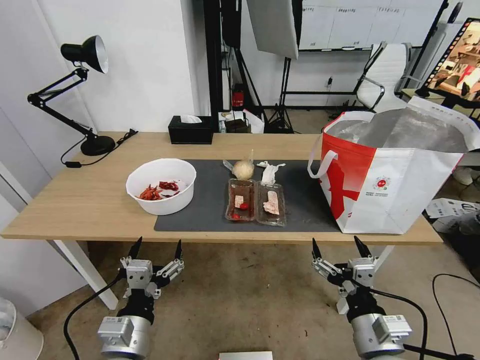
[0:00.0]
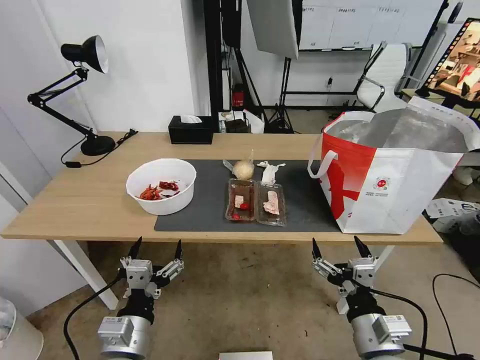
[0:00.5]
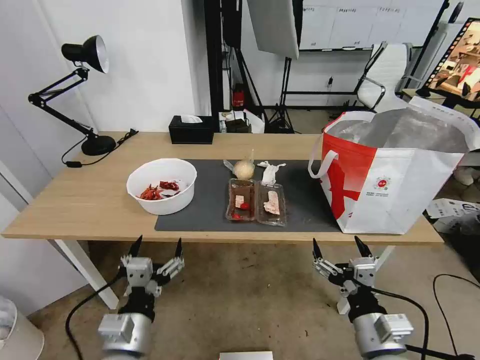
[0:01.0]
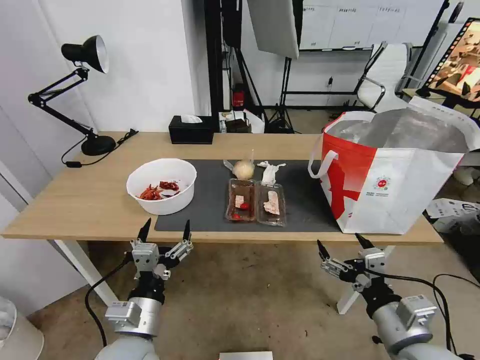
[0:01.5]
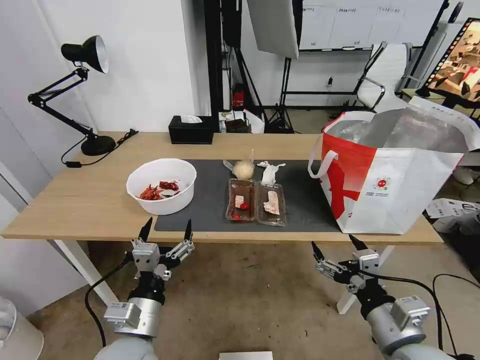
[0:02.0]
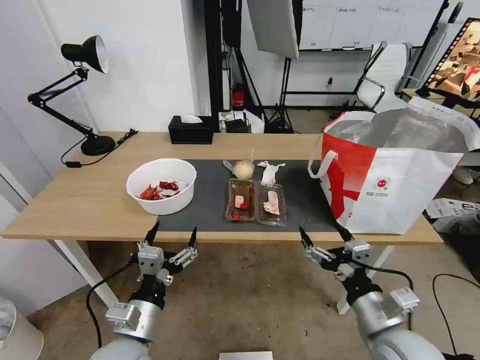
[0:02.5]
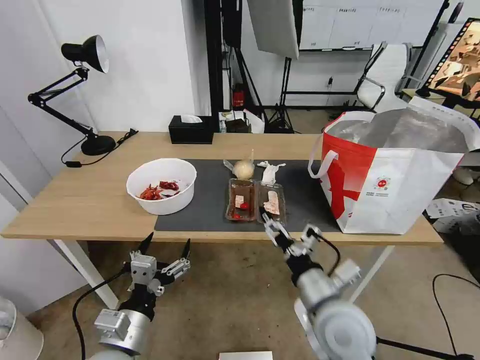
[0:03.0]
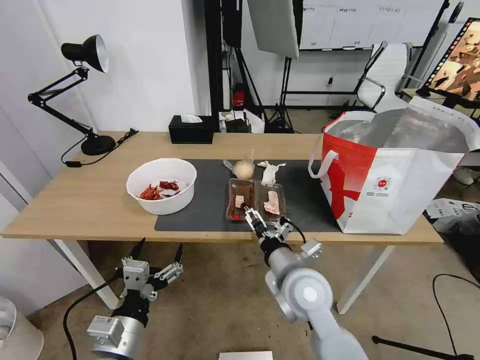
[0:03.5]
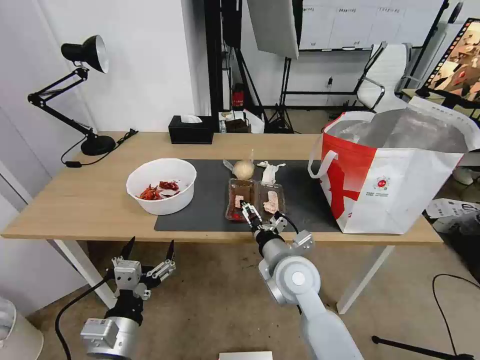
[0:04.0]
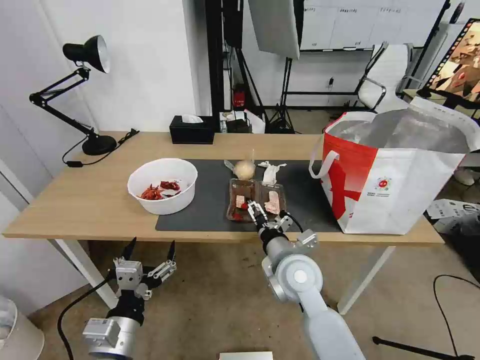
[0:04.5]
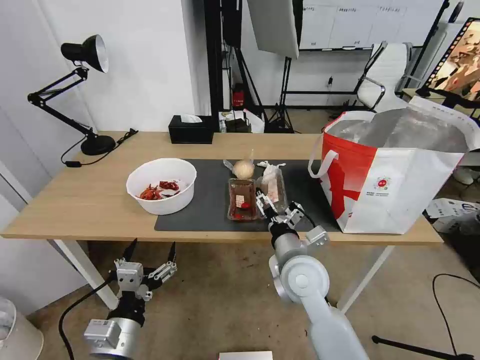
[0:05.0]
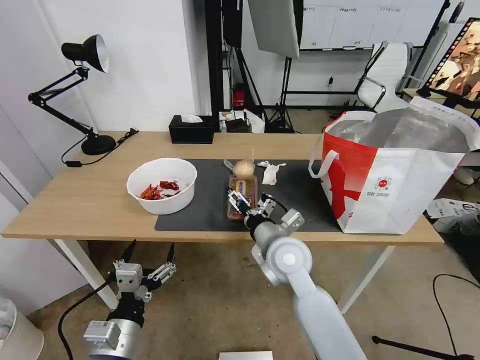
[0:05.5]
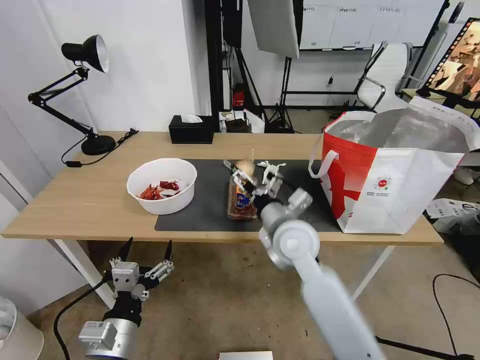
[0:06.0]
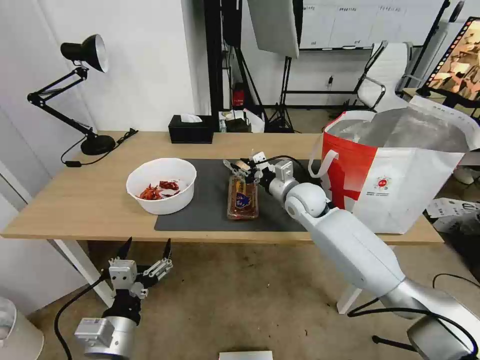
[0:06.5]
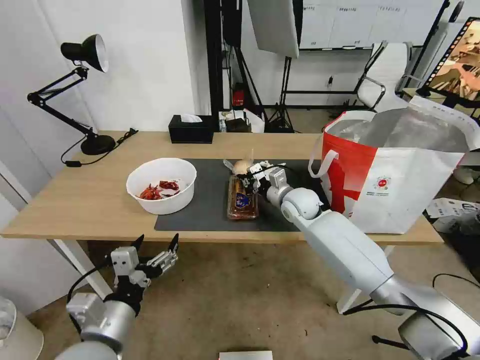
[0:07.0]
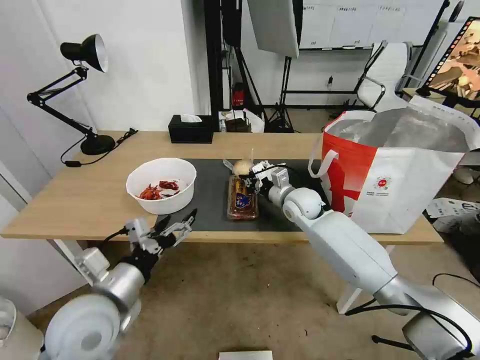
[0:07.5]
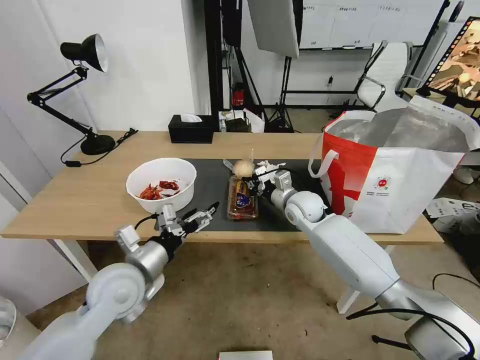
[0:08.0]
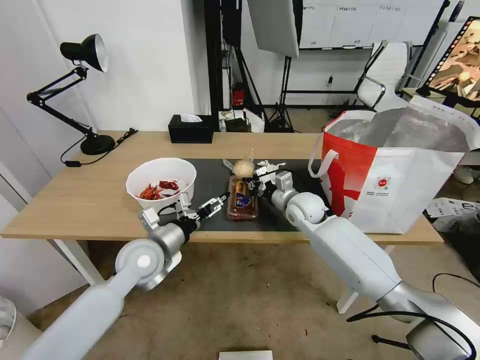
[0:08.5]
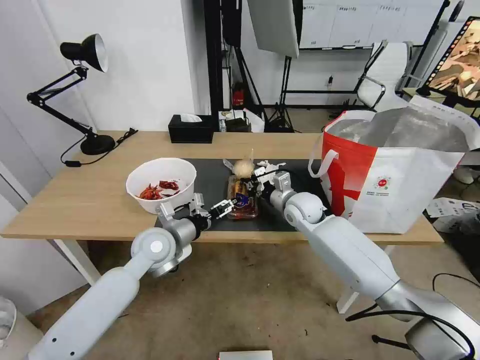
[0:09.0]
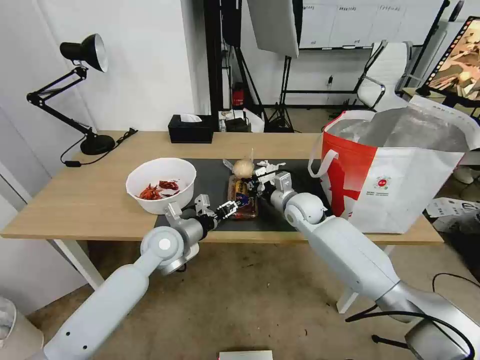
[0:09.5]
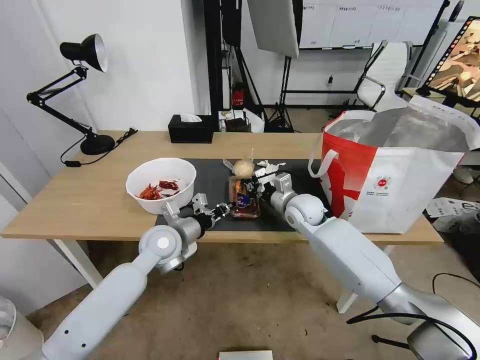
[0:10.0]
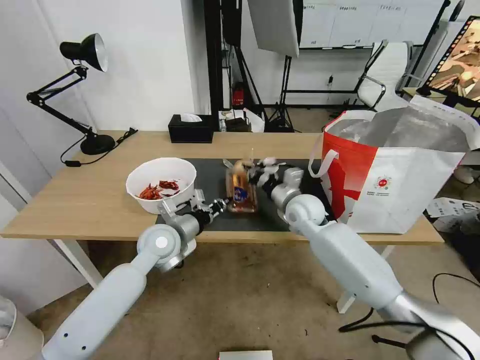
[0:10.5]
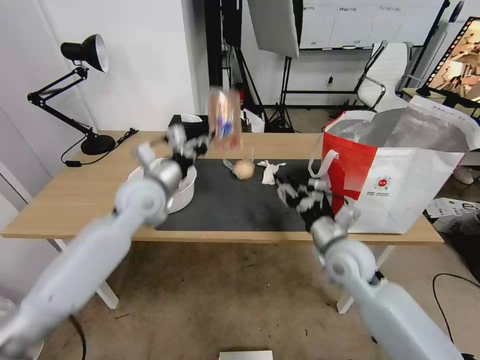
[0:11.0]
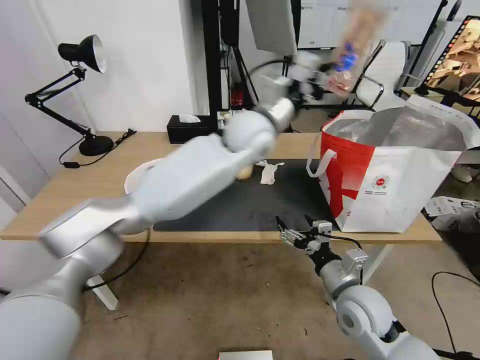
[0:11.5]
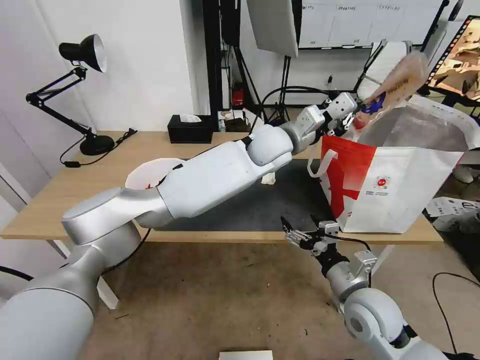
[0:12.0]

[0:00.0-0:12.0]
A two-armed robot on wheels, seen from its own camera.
Task of the whole recording: Pick up the trash from the table and place it into the takeout bag.
0:02.0 to 0:04.0: The right gripper goes about 25 cm to the left and forward.
0:04.0 to 0:06.0: The right gripper travels forward by about 5 cm.
0:06.0 to 0:08.0: The left gripper goes about 15 cm forward. The right gripper is displaced forward and to the right by some 15 cm, and closes its fingers.
0:08.0 to 0:10.0: The left gripper shifts approximately 10 cm forward, and closes its fingers.
0:10.0 to 0:12.0: The left gripper shifts about 35 cm to the right, upward and forward. Meanwhile the right gripper shifts about 25 cm backward, and opens up.

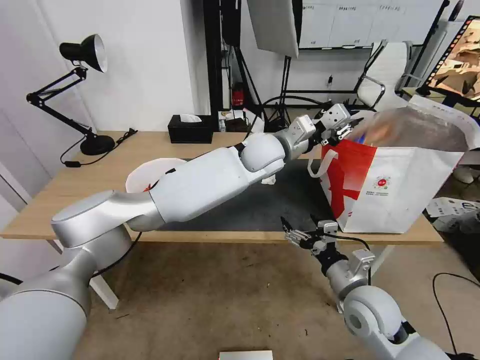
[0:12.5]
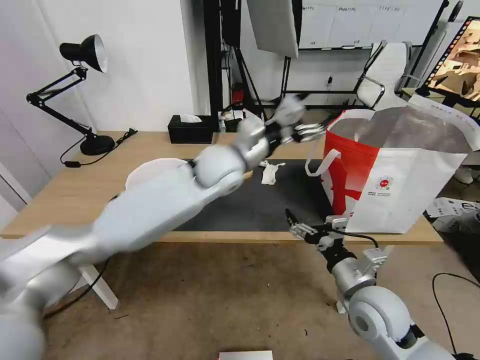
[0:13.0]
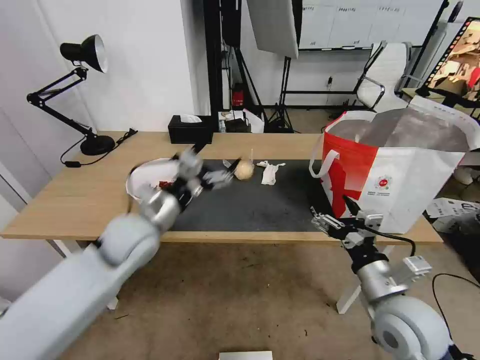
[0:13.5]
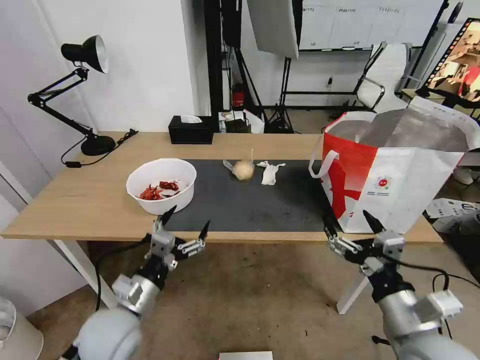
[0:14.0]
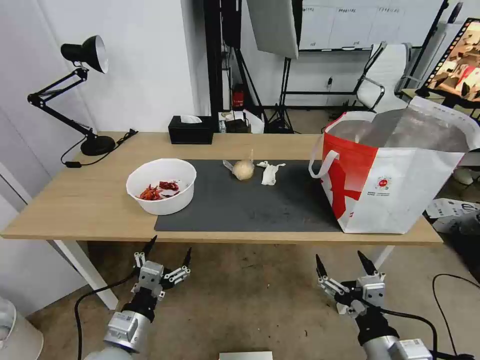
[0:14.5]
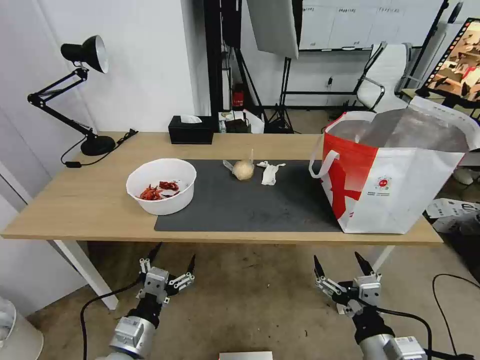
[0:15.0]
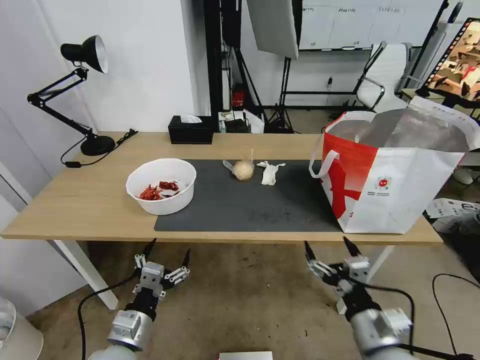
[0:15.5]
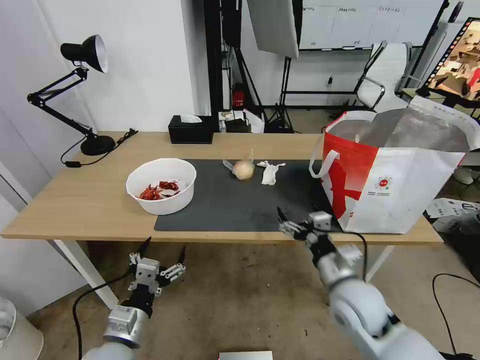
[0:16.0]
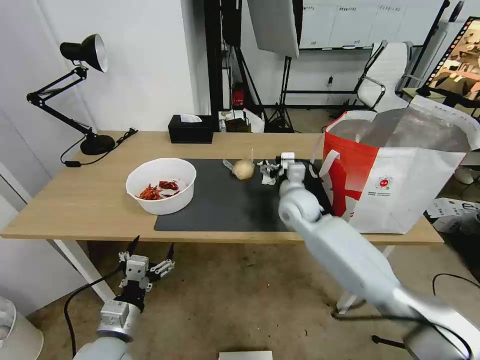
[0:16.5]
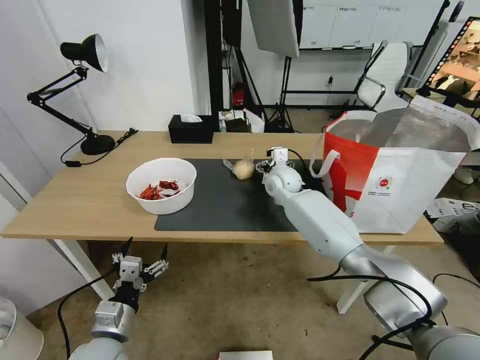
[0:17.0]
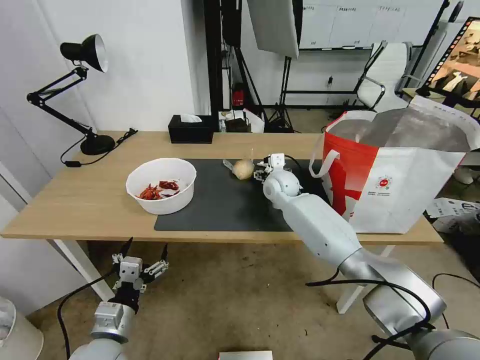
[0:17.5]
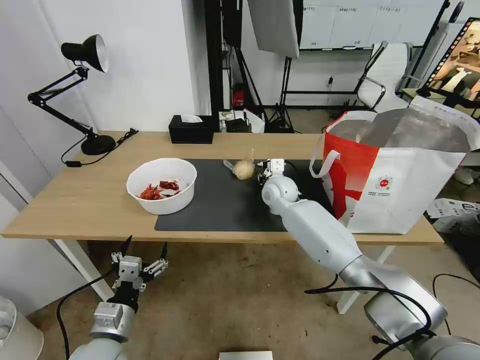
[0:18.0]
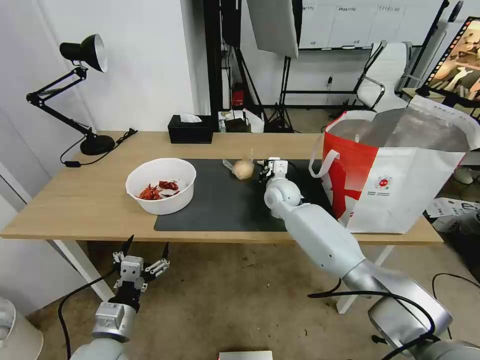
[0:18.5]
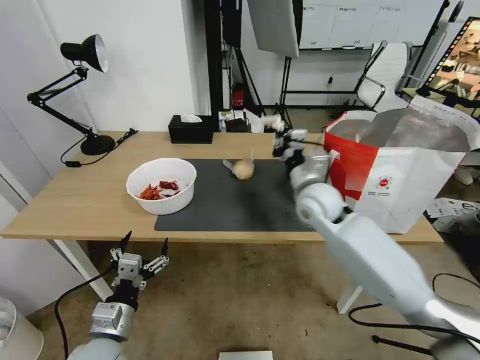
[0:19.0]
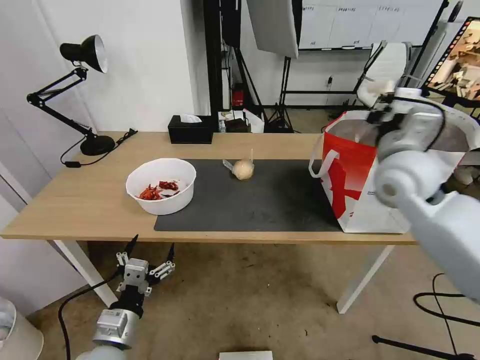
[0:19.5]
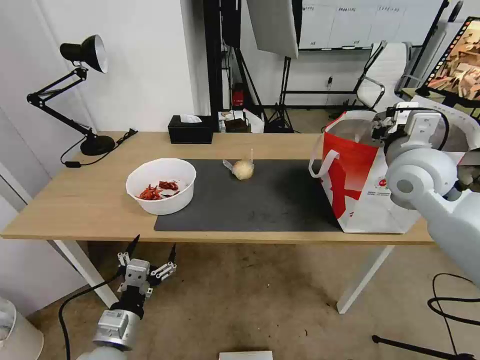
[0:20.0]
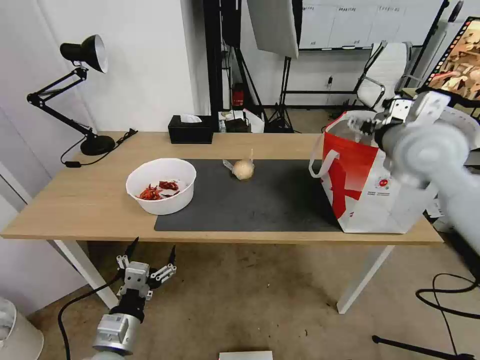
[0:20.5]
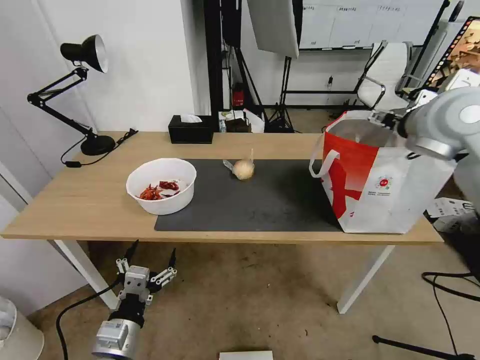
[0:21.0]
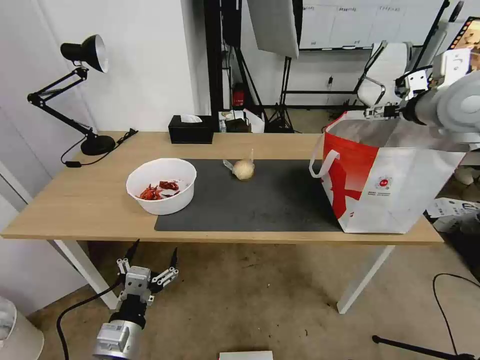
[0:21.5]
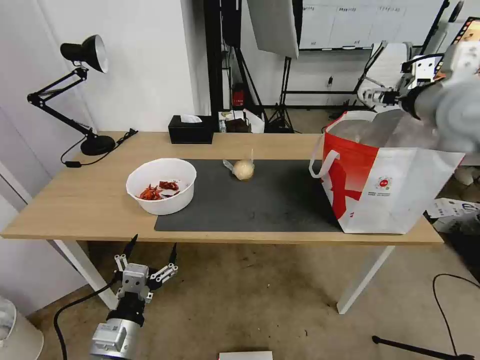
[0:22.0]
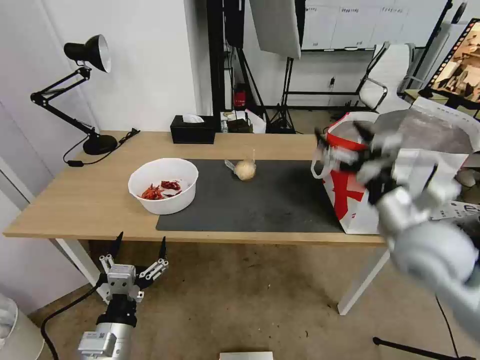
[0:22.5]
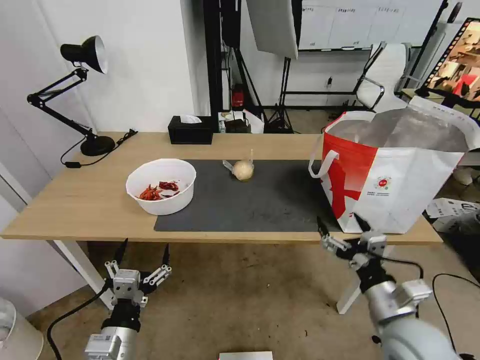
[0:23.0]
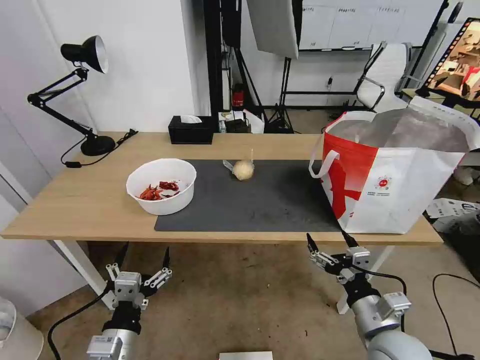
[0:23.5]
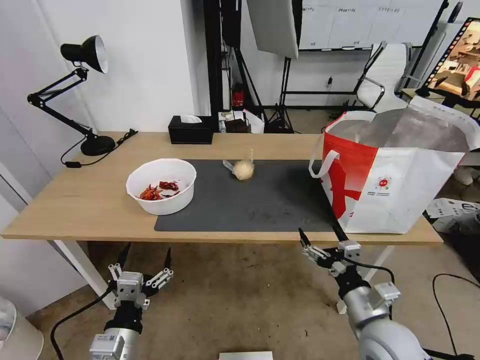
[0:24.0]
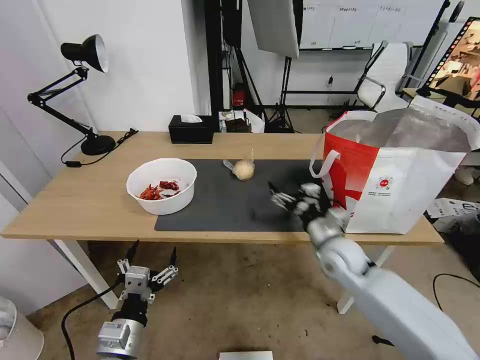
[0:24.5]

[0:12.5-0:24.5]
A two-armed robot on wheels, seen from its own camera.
Task of the whole recording: Pick up the trash from the table and place it into the takeout bag.
0:12.5 to 0:14.5: The left gripper travels backward, to the left and downward by about 50 cm, and opens. The right gripper is displaced backward by some 15 cm.
0:14.5 to 0:16.5: The right gripper travels forward by roughly 40 cm.
0:16.5 to 0:18.5: The right gripper shifts about 5 cm forward, and closes.
0:18.5 to 0:20.5: The right gripper moves upward, to the right and backward, about 35 cm, and opens its fingers.
0:20.5 to 0:22.5: The right gripper travels backward and downward by some 20 cm.
0:22.5 to 0:24.5: The right gripper travels downward, forward and to the left by about 20 cm.

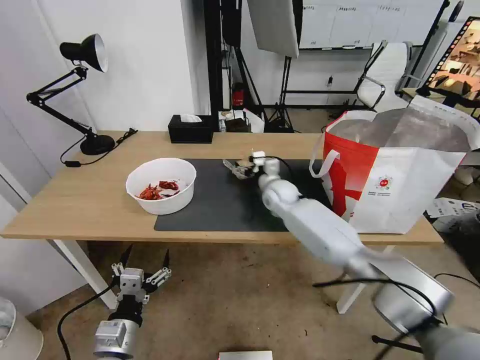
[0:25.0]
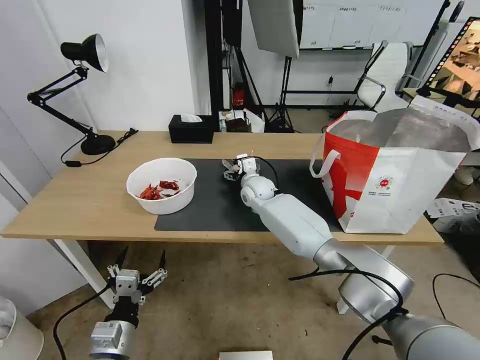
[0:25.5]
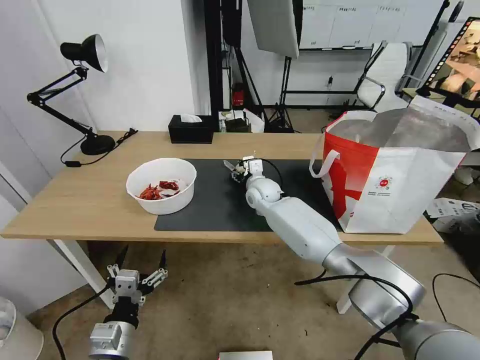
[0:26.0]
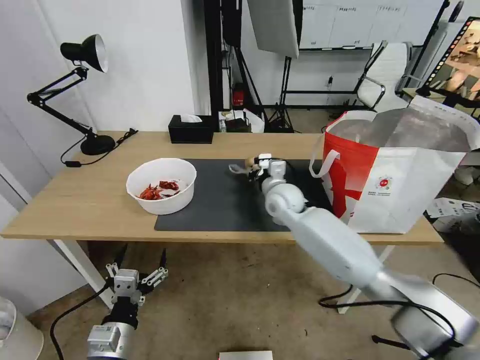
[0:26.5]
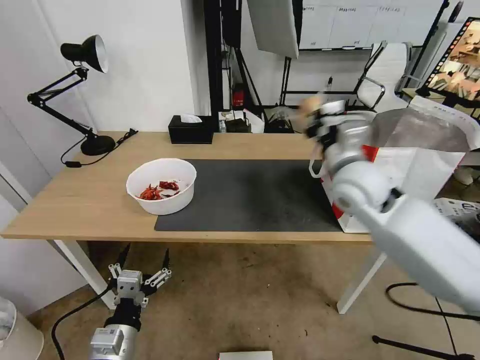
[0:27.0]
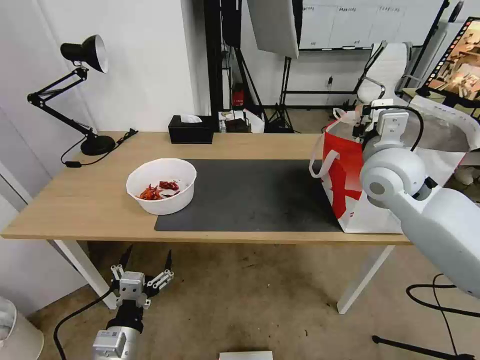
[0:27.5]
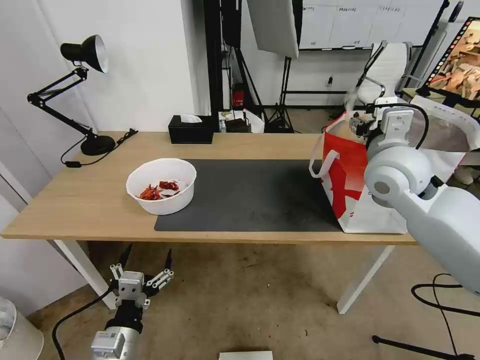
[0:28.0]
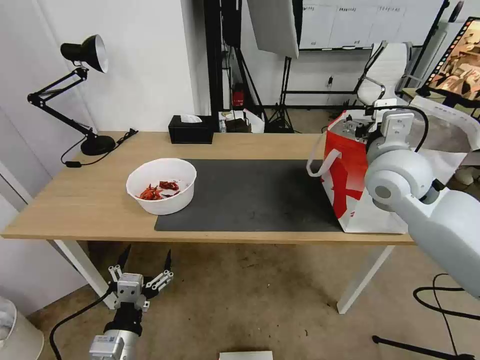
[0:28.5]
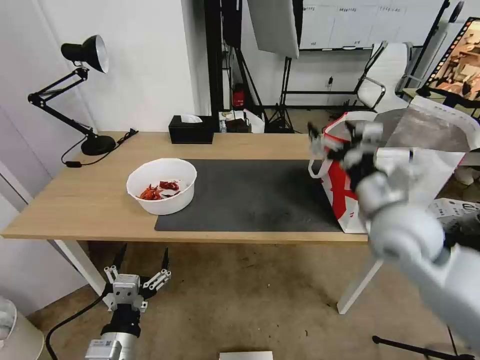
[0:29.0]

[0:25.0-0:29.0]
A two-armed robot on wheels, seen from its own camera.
Task of the whole recording: Pick up the trash from the table and place it into the takeout bag.
0:25.0 to 0:27.0: The right gripper heads upward, backward and to the right, covering roughly 25 cm, and closes up.
0:27.0 to 0:29.0: The right gripper is displaced backward by some 10 cm, and opens up.
